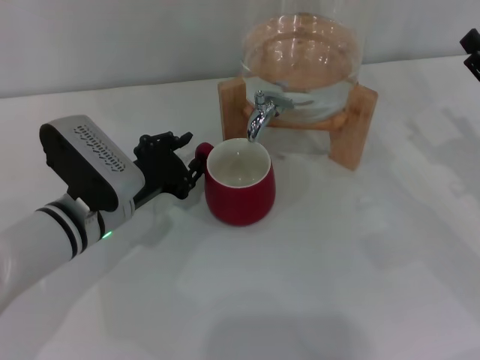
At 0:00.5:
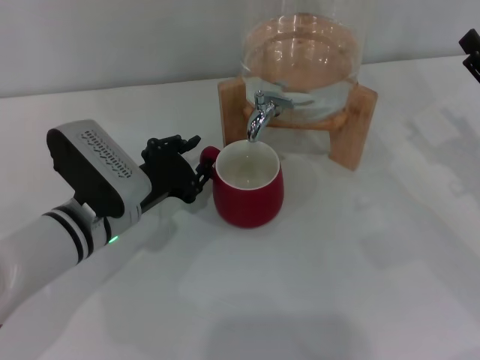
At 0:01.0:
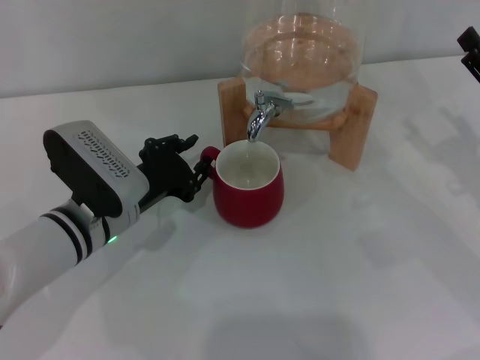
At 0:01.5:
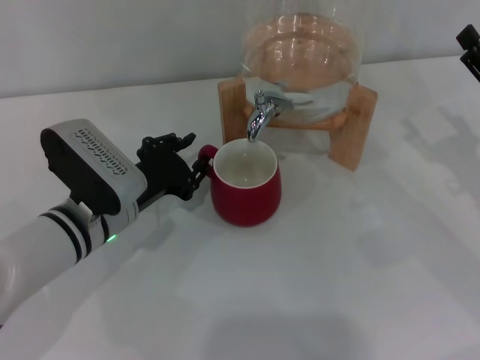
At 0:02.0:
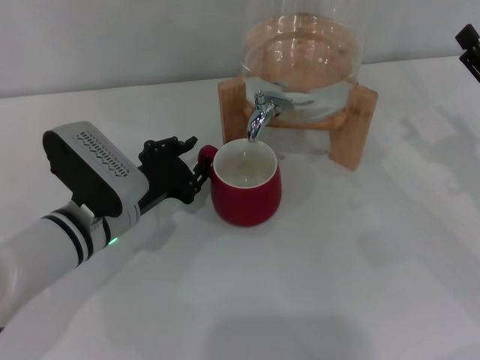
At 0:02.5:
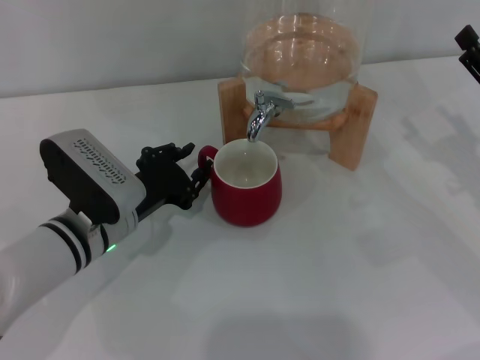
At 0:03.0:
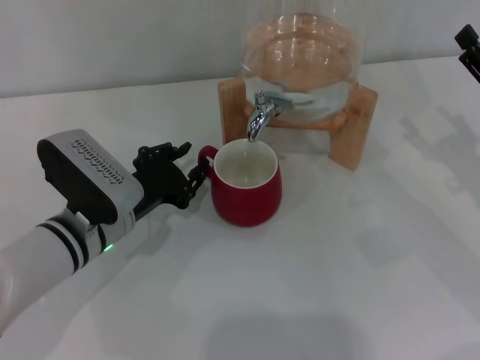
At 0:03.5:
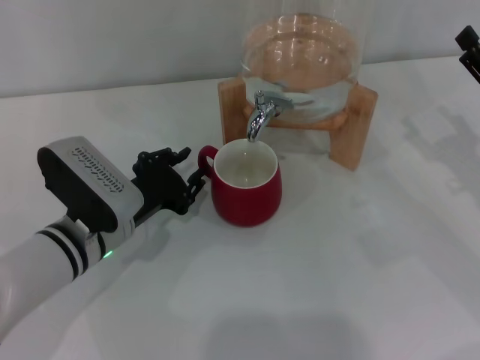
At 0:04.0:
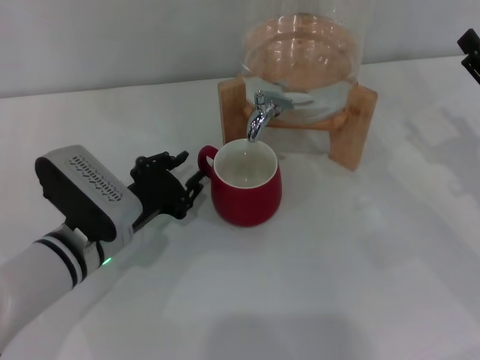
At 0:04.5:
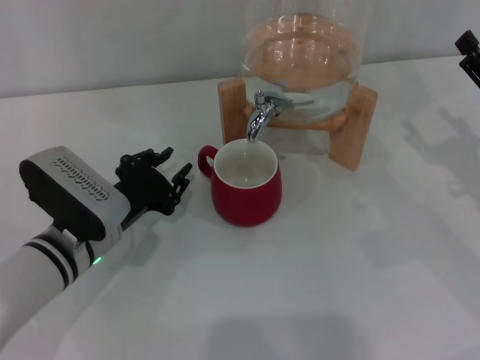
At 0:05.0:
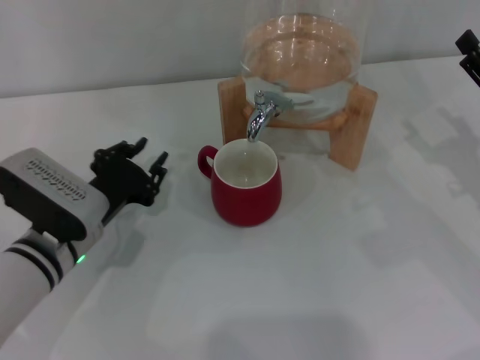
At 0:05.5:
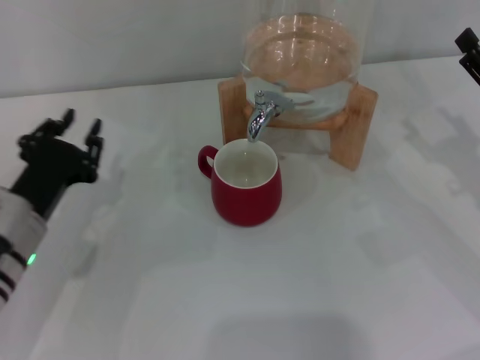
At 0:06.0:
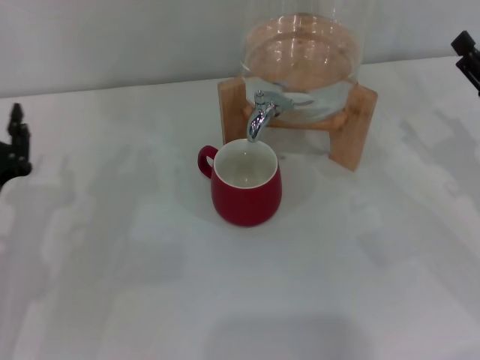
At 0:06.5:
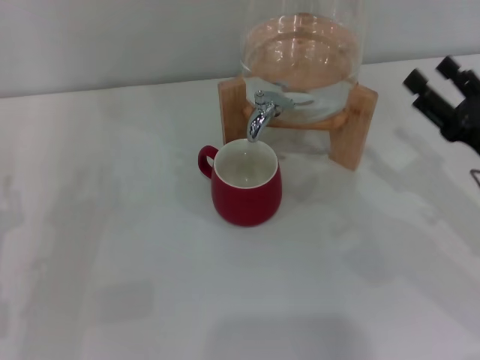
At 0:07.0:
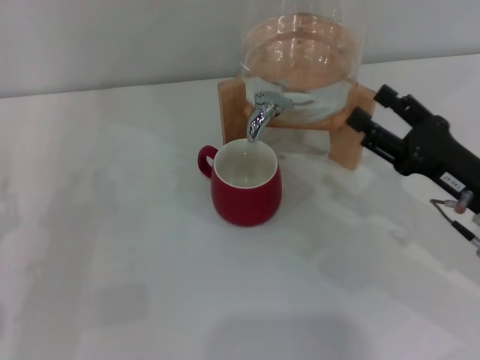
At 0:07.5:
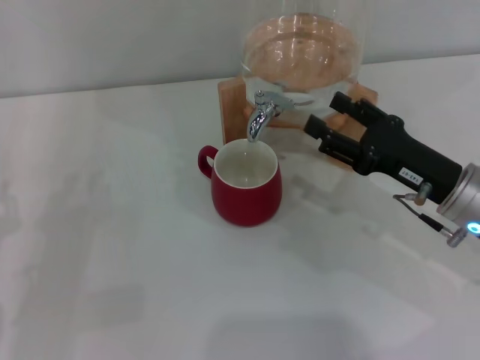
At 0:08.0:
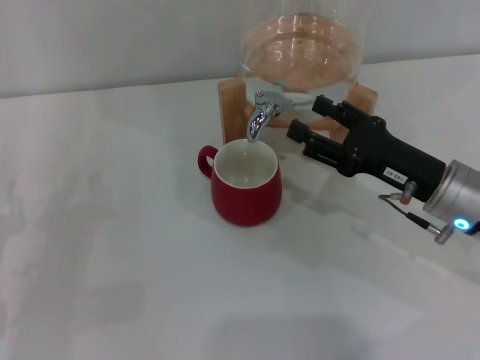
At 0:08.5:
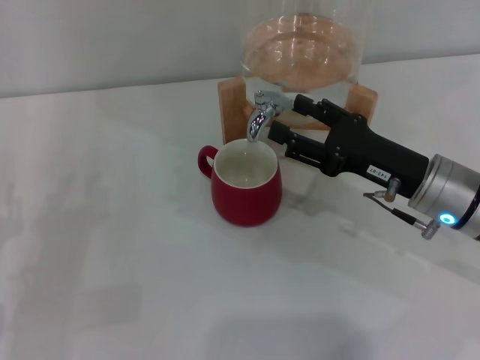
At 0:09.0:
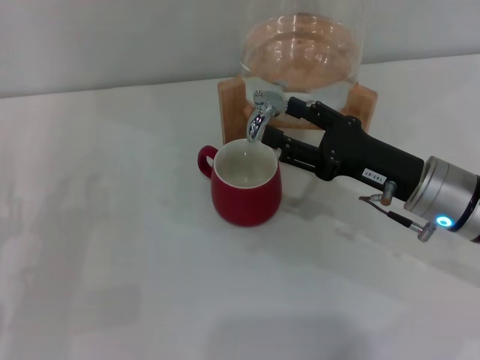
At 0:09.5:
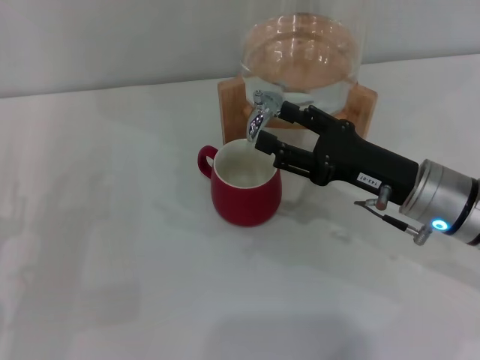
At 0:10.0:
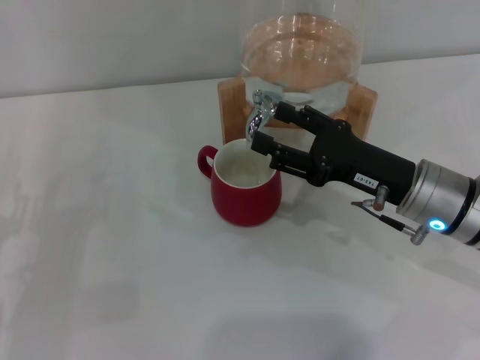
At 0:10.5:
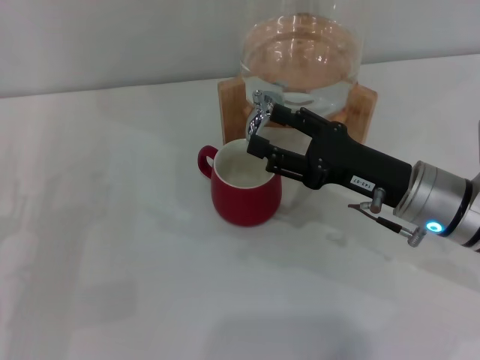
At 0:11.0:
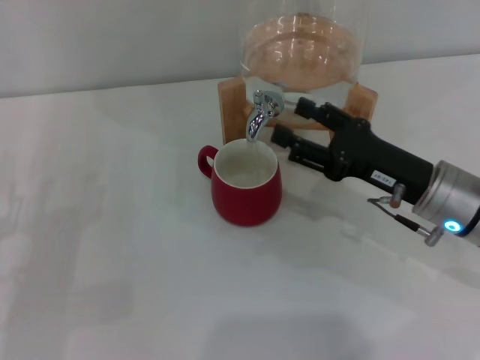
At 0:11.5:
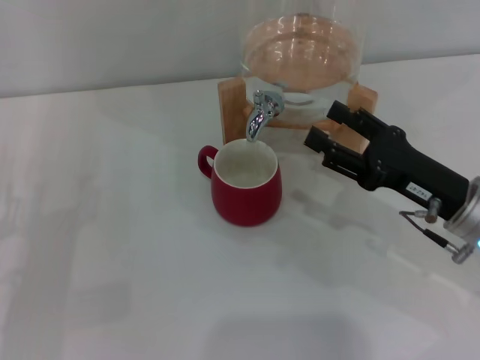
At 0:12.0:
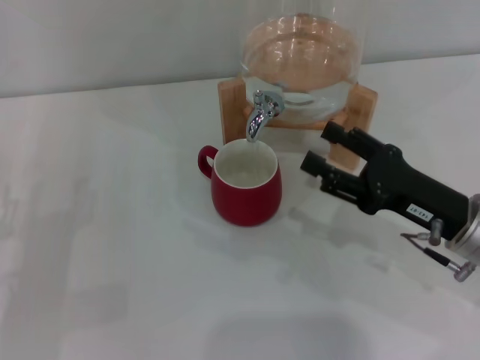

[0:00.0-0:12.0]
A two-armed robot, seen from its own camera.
Task of the whole recording: the left gripper pick up the red cup and place it horizontally under the faucet, the right gripper turn on the faucet to fill the cup, and then turn off the faucet.
Step, 0:00.0 to 0:04.0: Move the cup beneath the water dispenser nozzle with the left gripper.
0:00.0 to 0:02.0: Both grippers stay about where they are.
0:02.0 to 0:04.0: The grippers make only small movements.
0:04.0 to 0:06.0: The left gripper travels to the left by about 10 cm.
0:06.0 to 0:08.0: The right gripper is displaced to the left by approximately 10 cm. Meanwhile the left gripper moves roughly 5 cm.
0:08.0 to 0:10.0: The left gripper opens up.
0:10.0 to 0:12.0: The right gripper shifts by some 5 cm.

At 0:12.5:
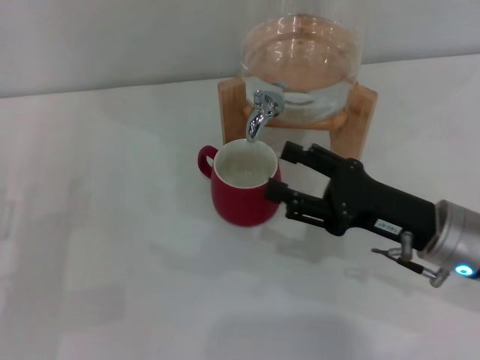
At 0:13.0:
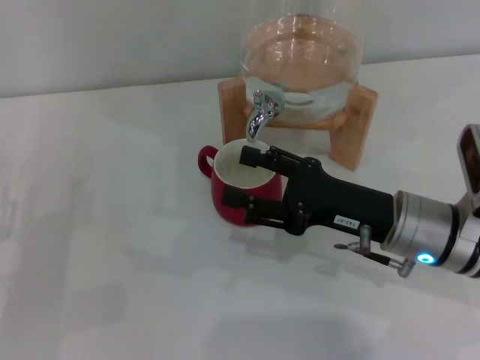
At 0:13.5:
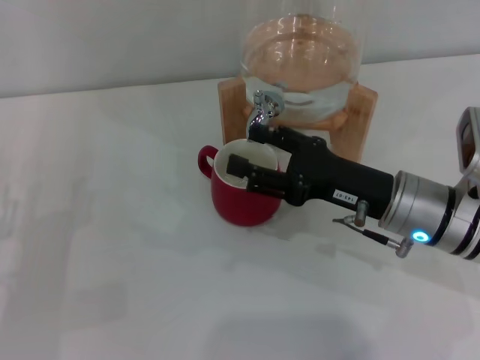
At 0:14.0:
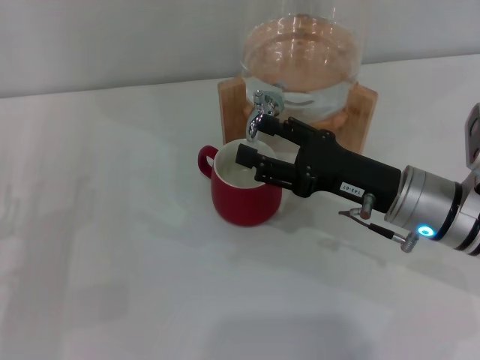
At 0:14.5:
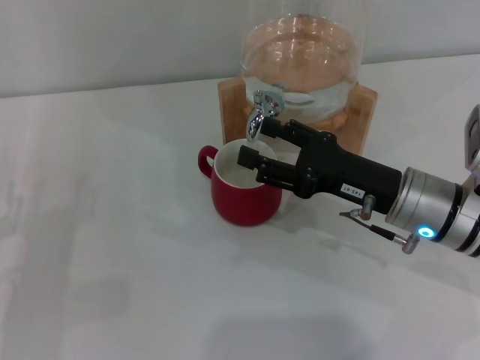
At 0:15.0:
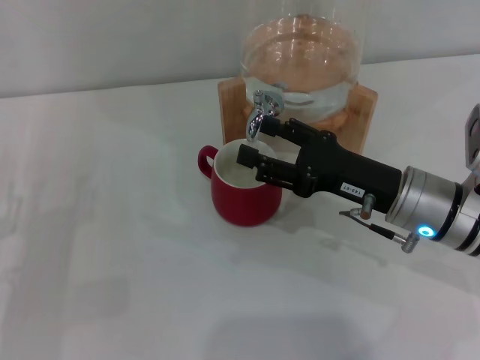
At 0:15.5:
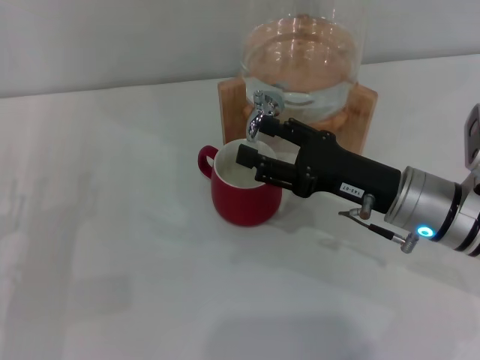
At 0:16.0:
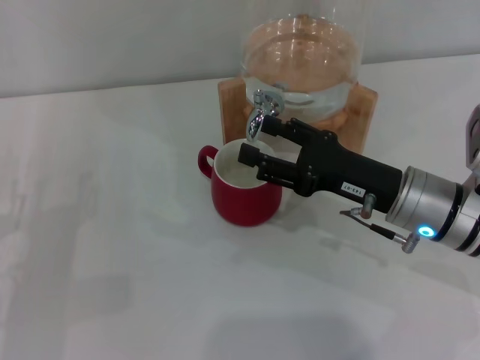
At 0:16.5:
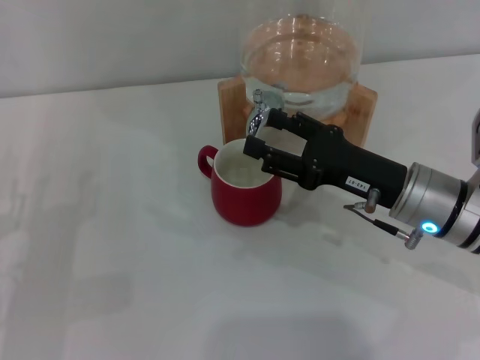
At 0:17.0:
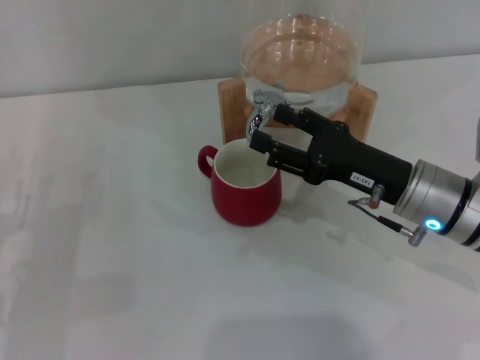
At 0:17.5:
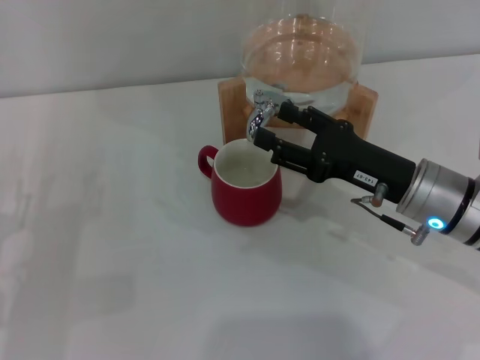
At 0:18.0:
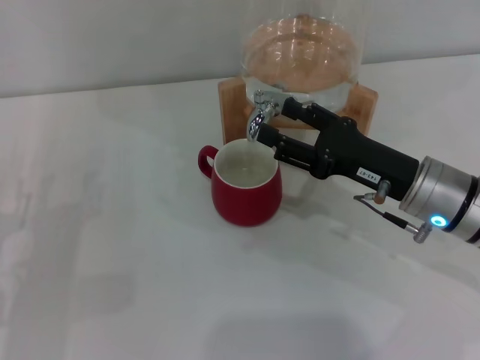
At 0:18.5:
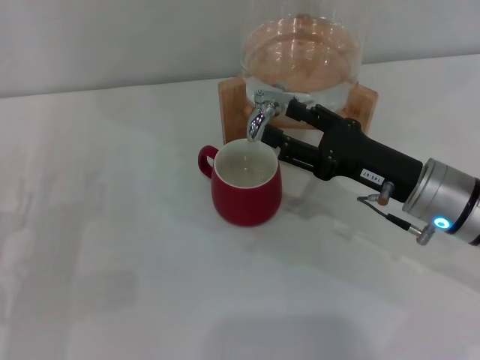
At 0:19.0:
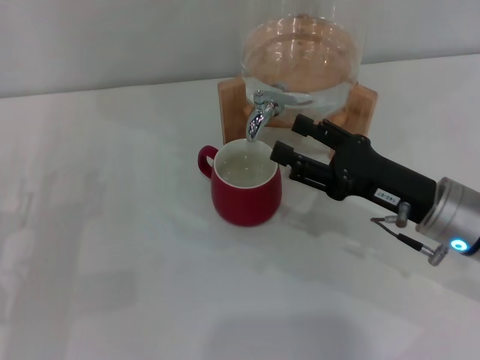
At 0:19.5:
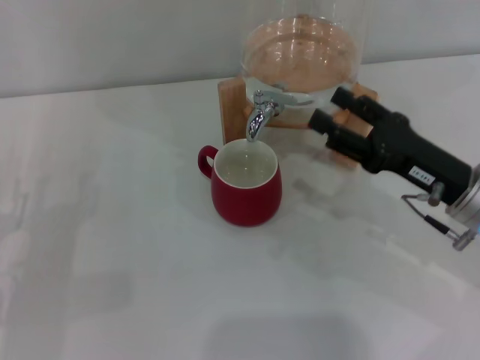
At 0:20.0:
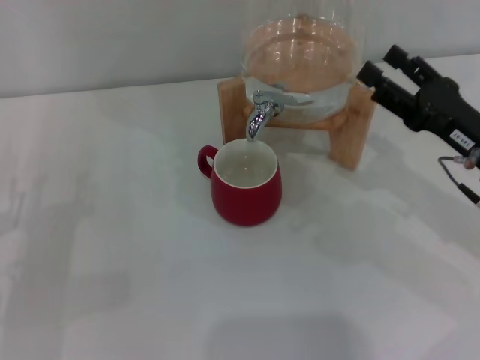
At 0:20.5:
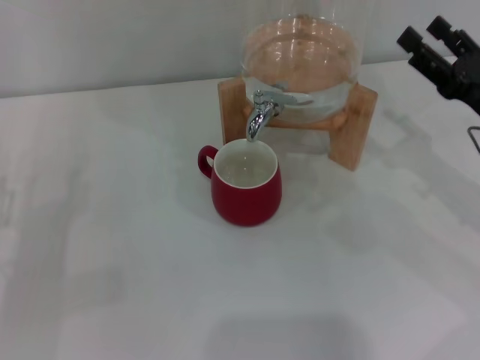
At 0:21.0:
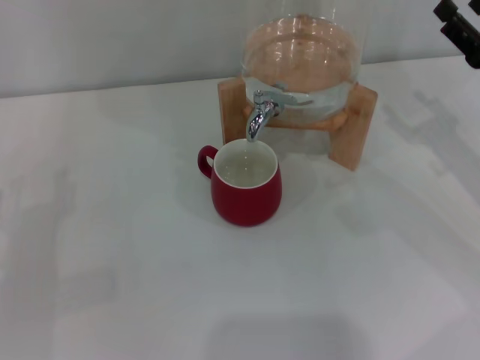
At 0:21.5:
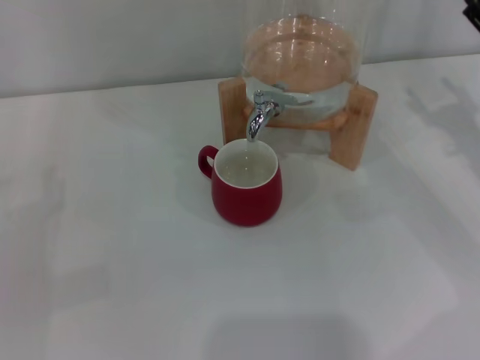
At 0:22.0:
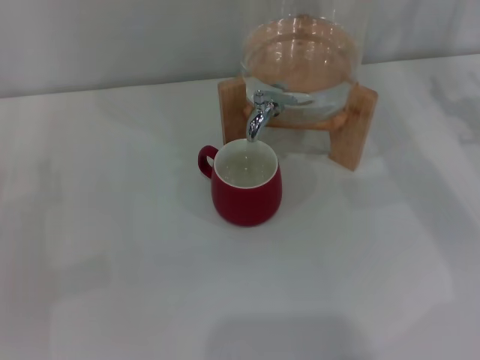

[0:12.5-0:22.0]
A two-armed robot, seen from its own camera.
Task of the whole recording: the left gripper pick up the red cup and place it horizontally under the faucet, the right gripper turn on the faucet to fill the cup, and then turn off the faucet.
Step, 0:13.0 to 0:18.5: Close the dispenser valve with the right gripper.
0:12.5 to 0:14.5: The grippers move only a little.
0:14.5 to 0:16.5: Both grippers stay about where they are.
0:16.5 to 0:18.0: Both grippers stay about where they are.
0:18.0 to 0:20.0: The right gripper moves to the right, about 5 cm.
0:20.0 to 0:22.0: The right gripper travels to the right and forward by roughly 10 cm.
